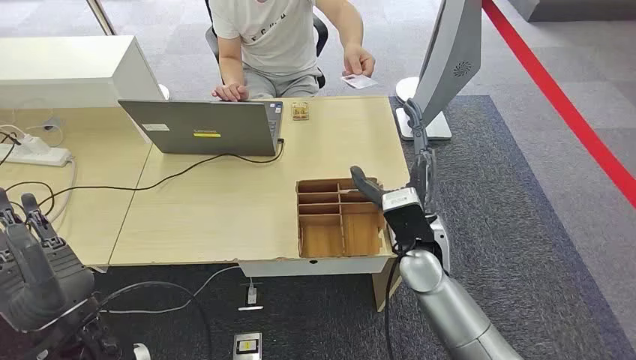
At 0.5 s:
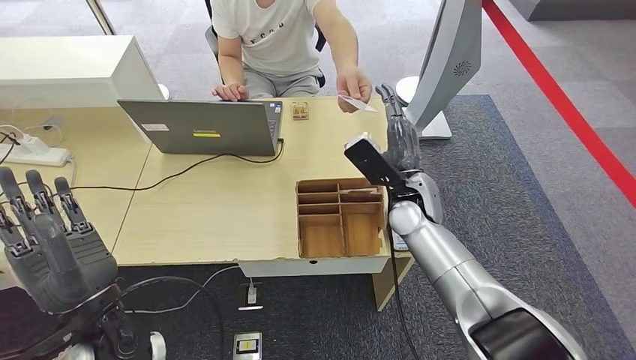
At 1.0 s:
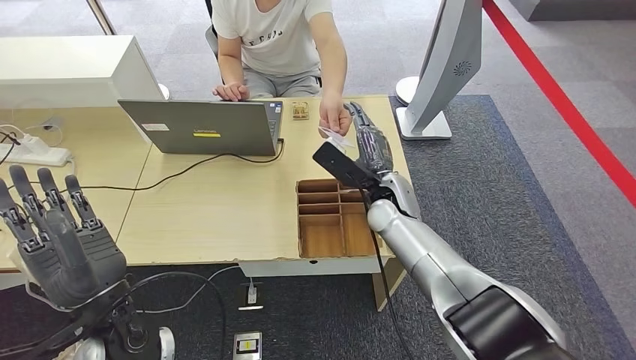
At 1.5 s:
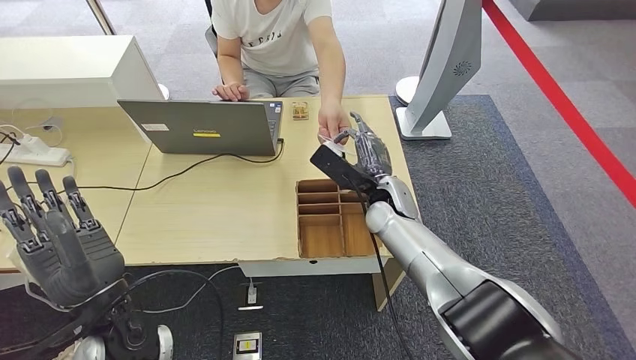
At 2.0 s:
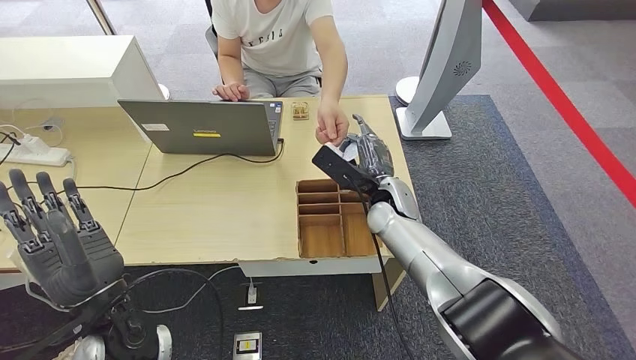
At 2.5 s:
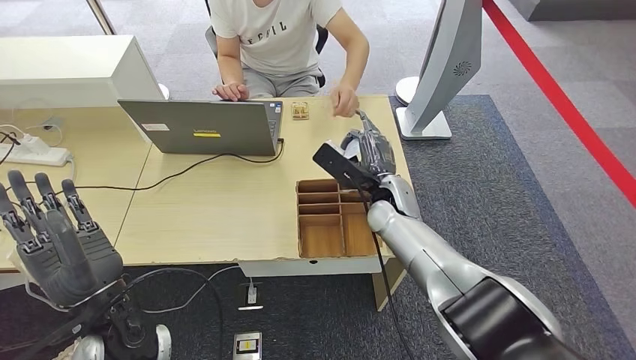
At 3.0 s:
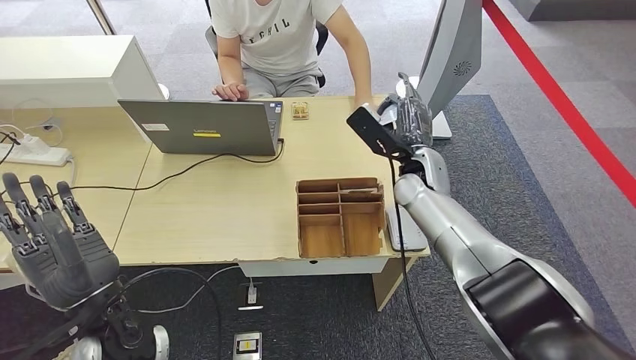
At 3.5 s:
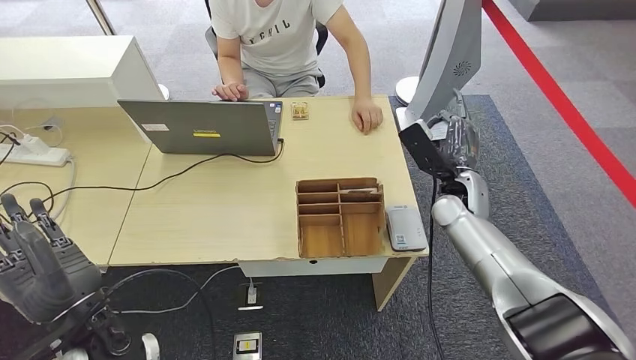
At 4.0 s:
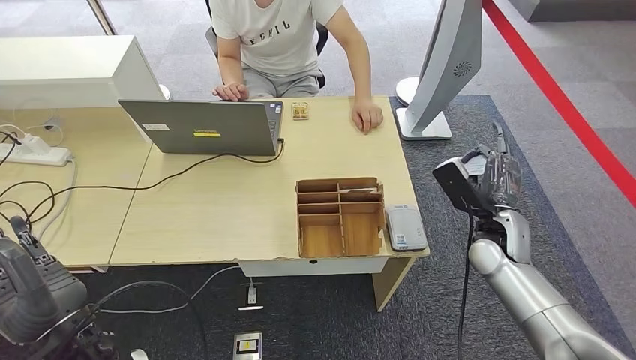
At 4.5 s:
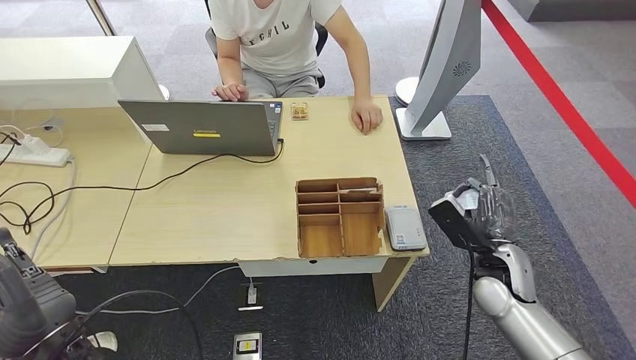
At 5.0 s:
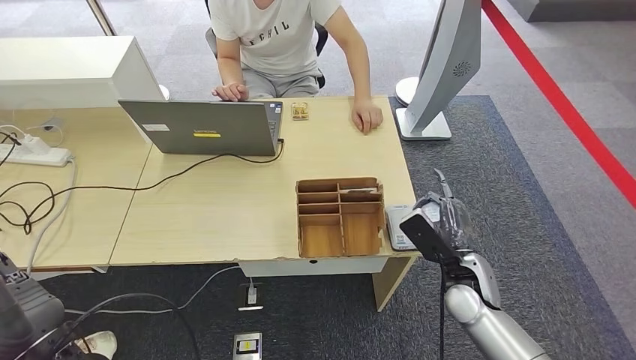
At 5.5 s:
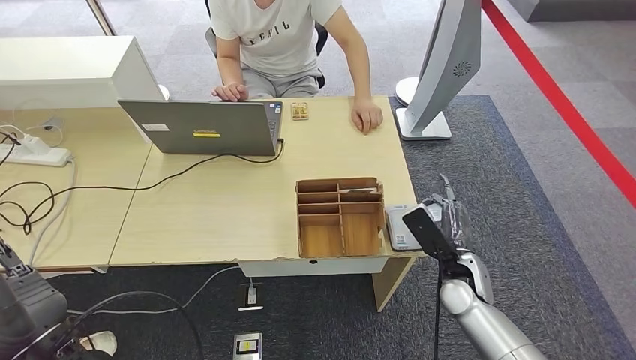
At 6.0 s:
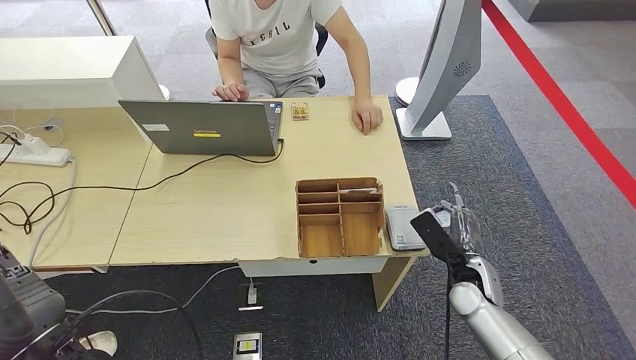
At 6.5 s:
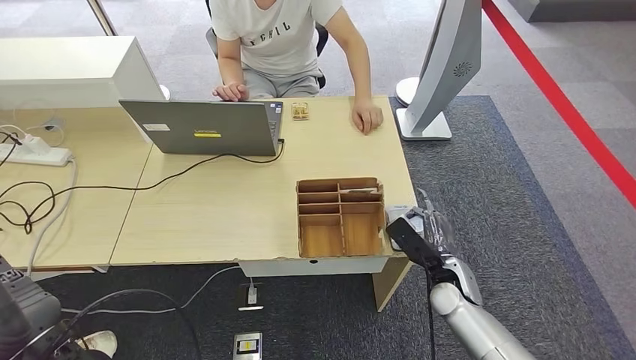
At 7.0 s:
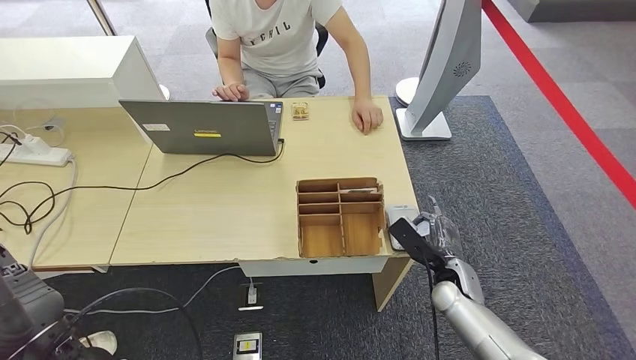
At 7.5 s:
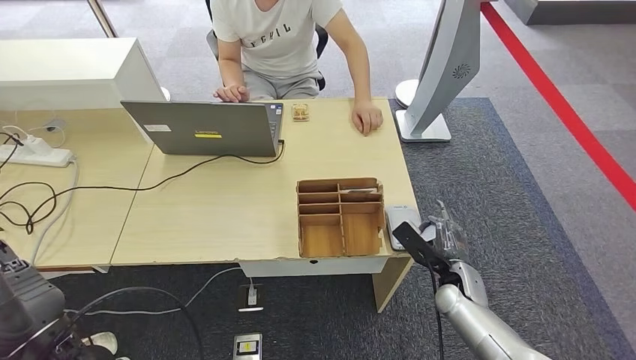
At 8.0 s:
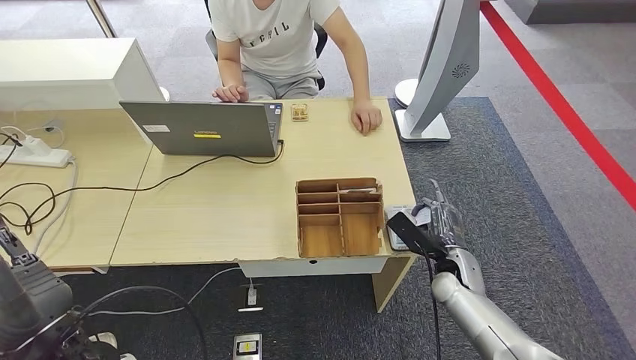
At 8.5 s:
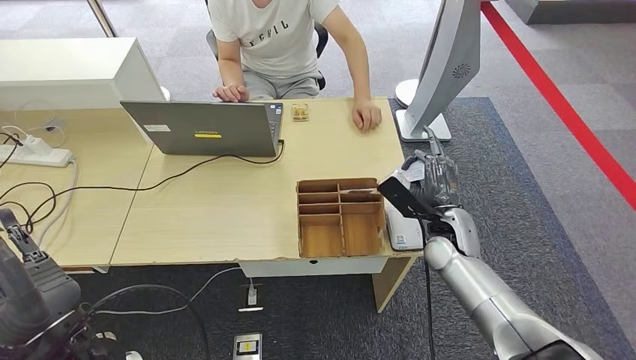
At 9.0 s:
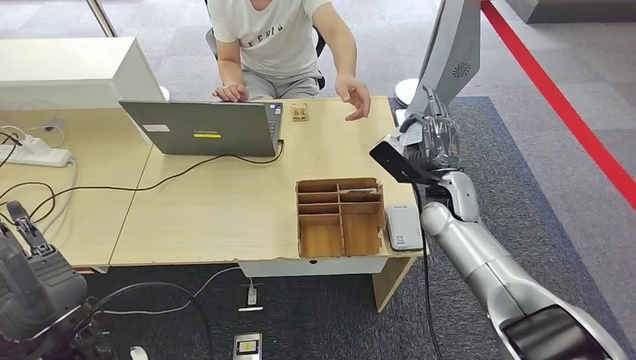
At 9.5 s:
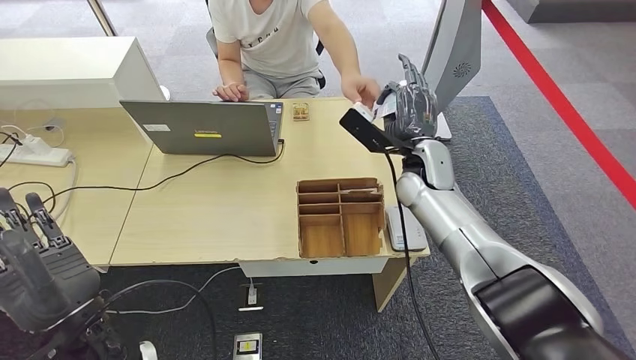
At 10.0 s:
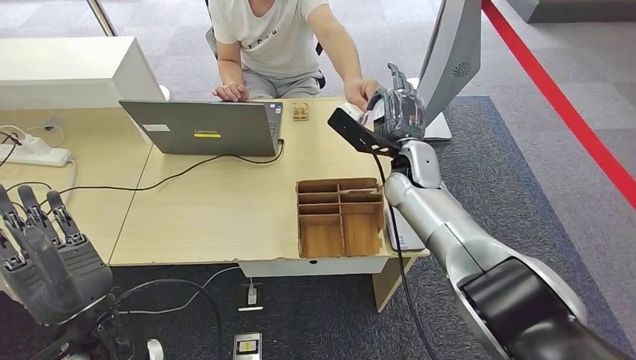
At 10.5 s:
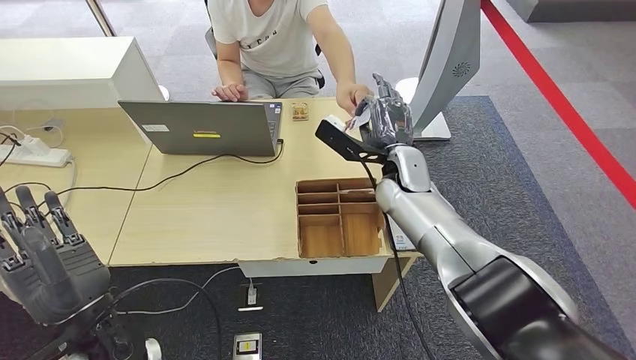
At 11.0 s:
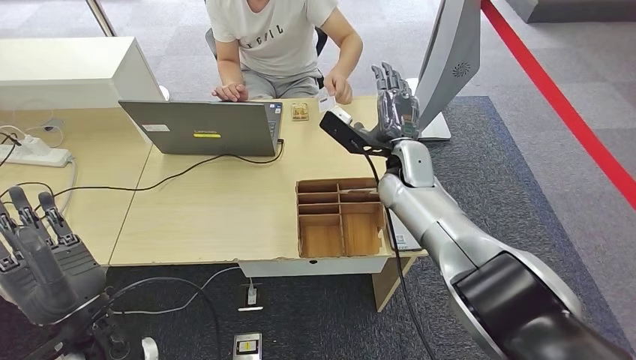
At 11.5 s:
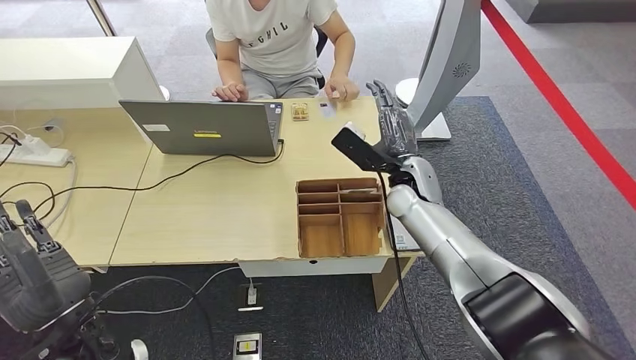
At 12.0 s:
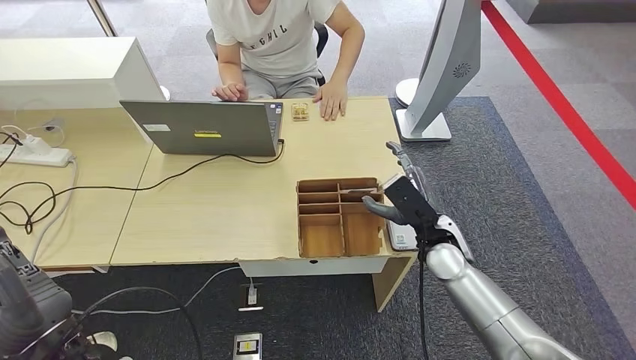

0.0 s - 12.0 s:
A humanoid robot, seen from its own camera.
Step, 0.0 s - 2.5 s: Take the ID card from the person's hand.
Step, 3.0 s - 8.0 s: Place the ID card on the card reader.
Step, 8.5 s - 10.5 s: Hand the ID card to the person.
2.0 s - 4.0 s: The right hand is displaced to the right and backward by roughly 20 cm.
4.0 s - 6.0 s: The right hand shifts approximately 10 cm downward.
6.0 s - 8.0 s: The hands stay close to where they were, moving slightly.
8.0 s - 10.0 s: The right hand is displaced upward, forward and to the left by some 25 cm.
10.0 s - 12.0 s: The right hand heads backward, downward and to the right, covering roughly 15 cm.

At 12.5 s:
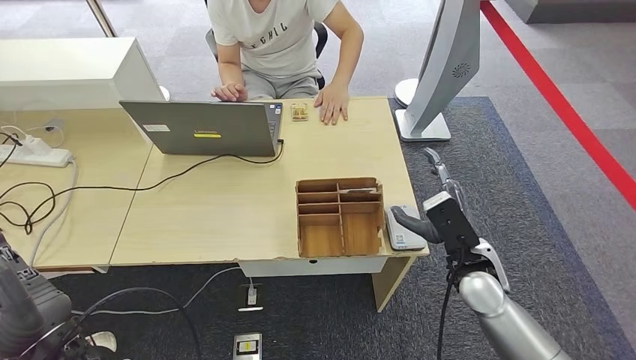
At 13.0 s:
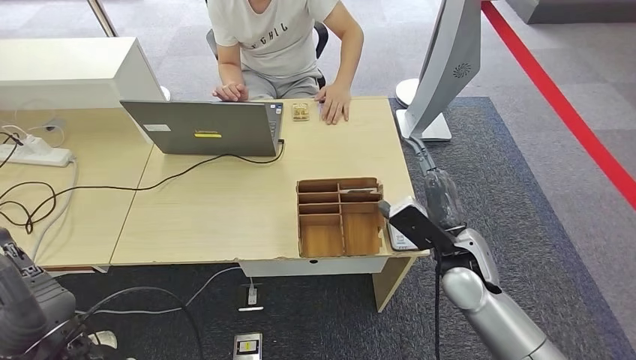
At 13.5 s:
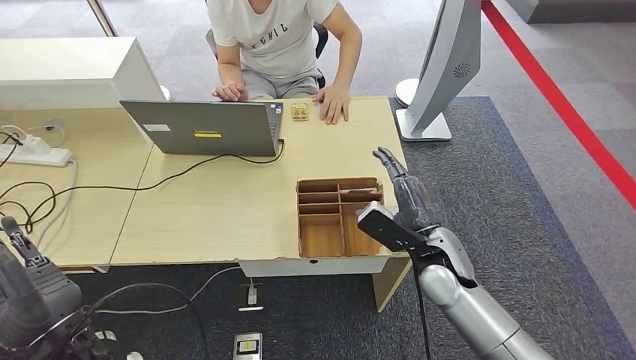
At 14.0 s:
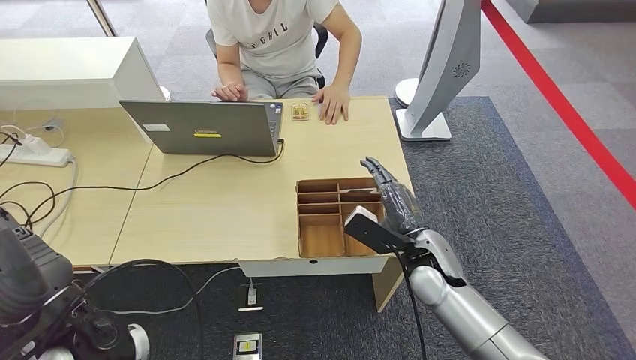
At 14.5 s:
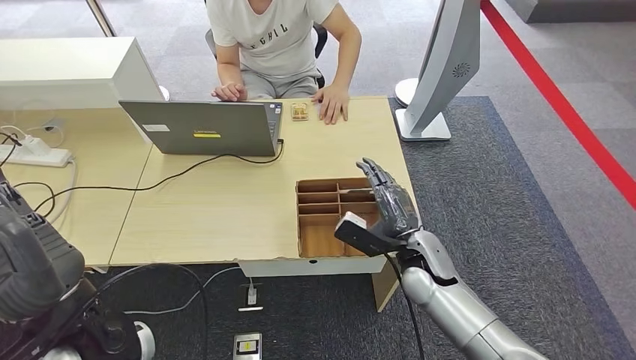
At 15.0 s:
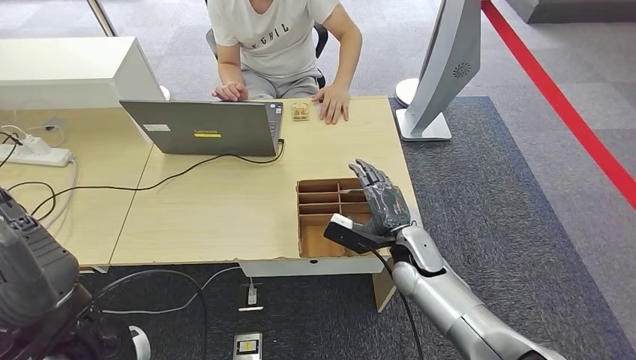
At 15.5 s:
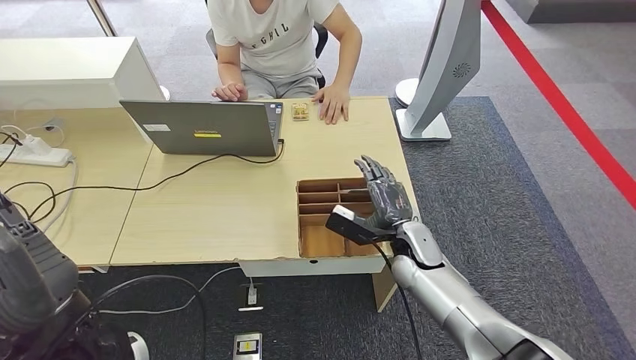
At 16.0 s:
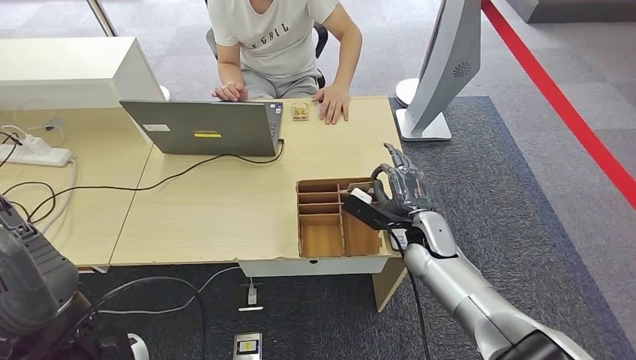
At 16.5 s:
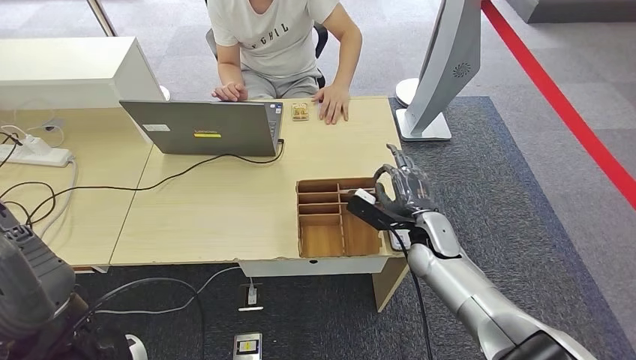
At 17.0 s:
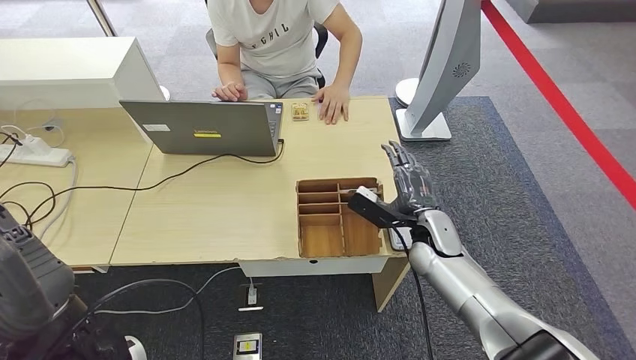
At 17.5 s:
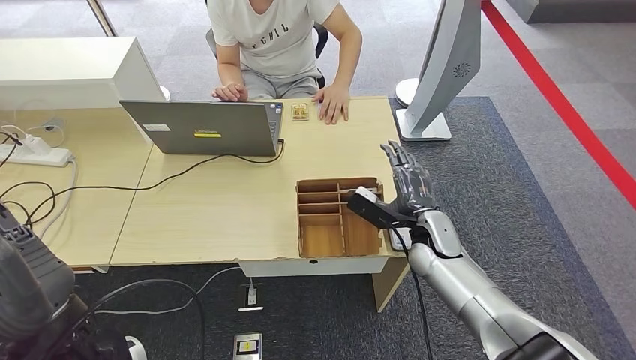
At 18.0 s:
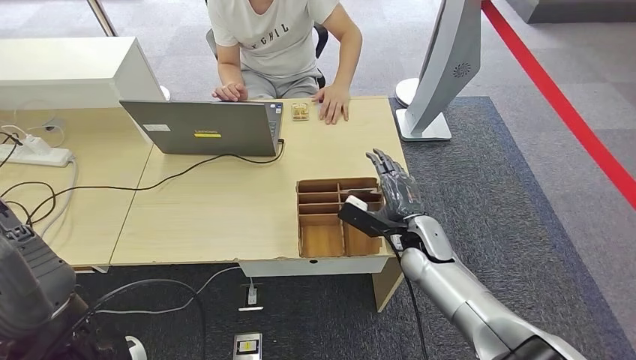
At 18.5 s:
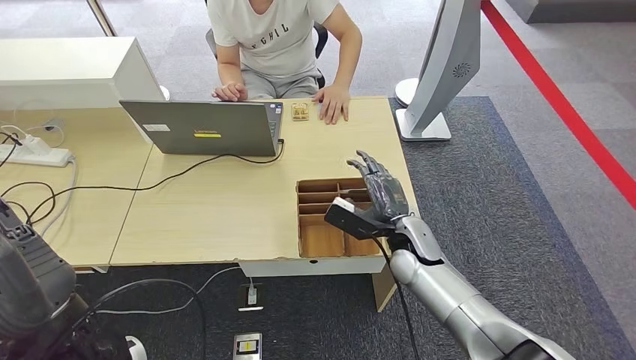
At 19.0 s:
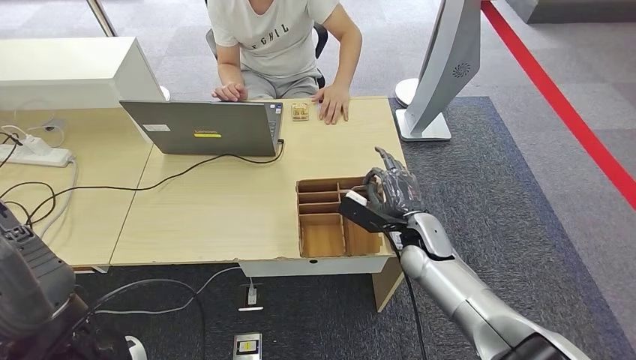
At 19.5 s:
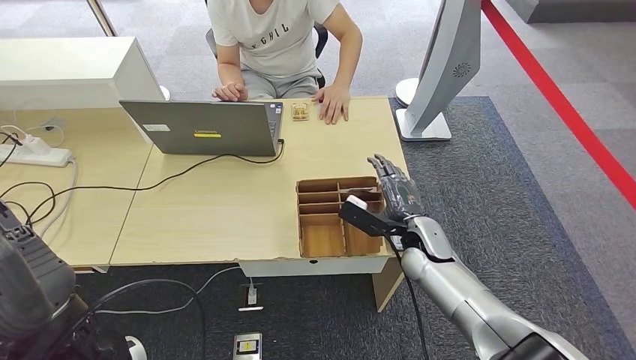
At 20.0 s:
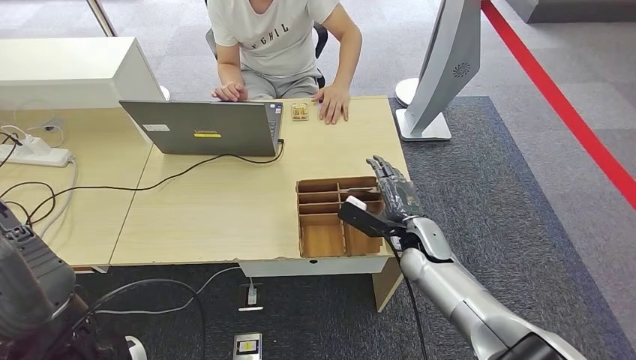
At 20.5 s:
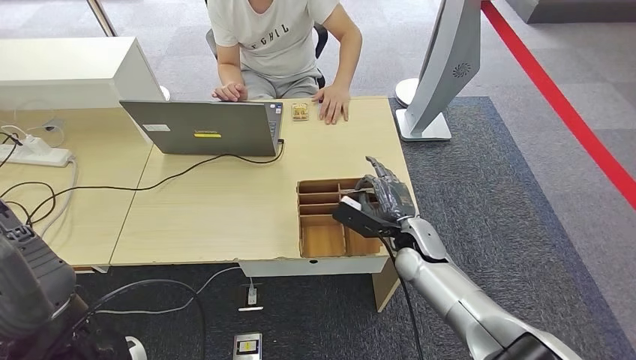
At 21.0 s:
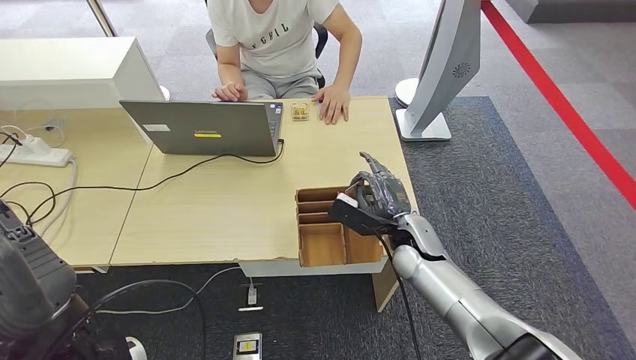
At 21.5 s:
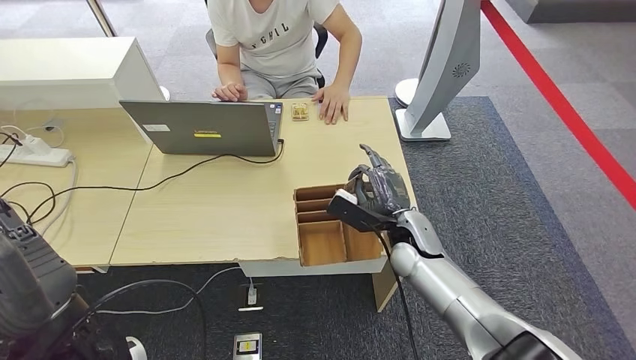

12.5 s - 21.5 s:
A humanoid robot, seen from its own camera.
12.5 s - 14.5 s: The right hand goes approximately 5 cm to the left; the left hand moves upward, approximately 5 cm.
14.5 s - 17.0 s: The right hand shifts by about 5 cm.
17.0 s - 21.5 s: The hands make only small movements.
